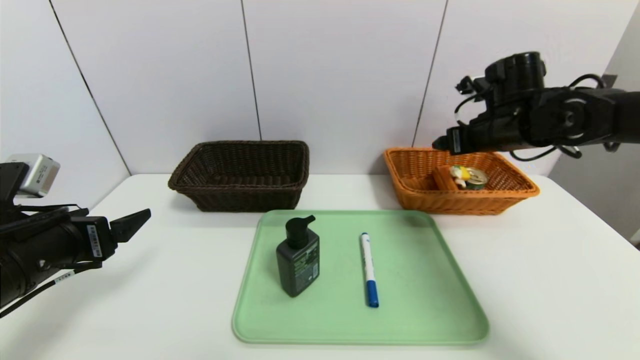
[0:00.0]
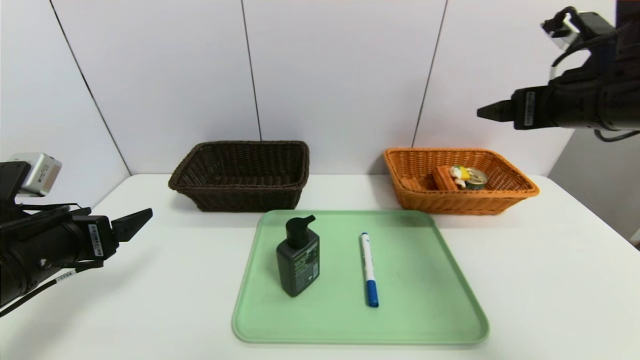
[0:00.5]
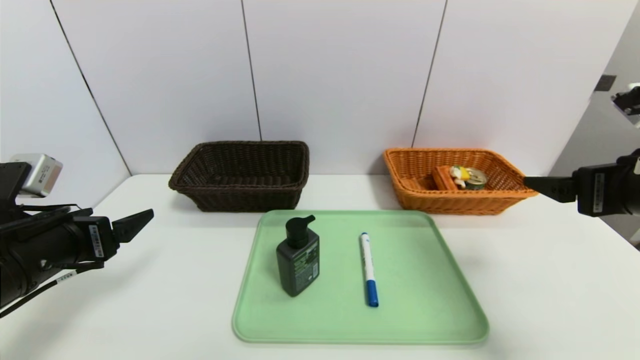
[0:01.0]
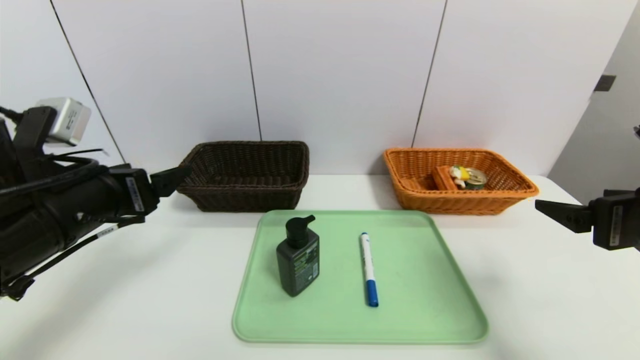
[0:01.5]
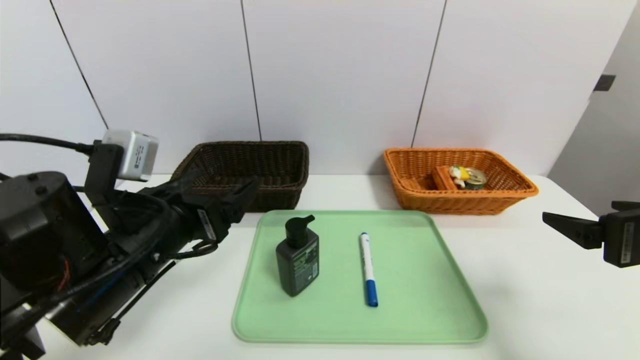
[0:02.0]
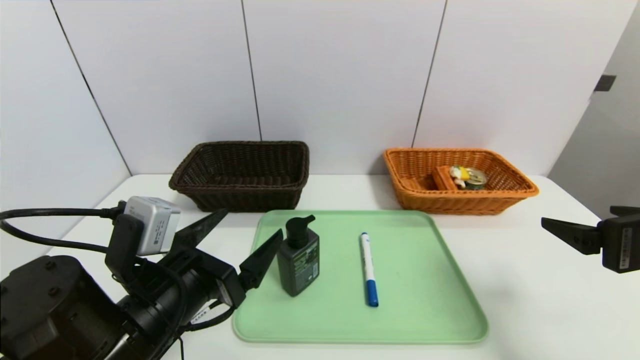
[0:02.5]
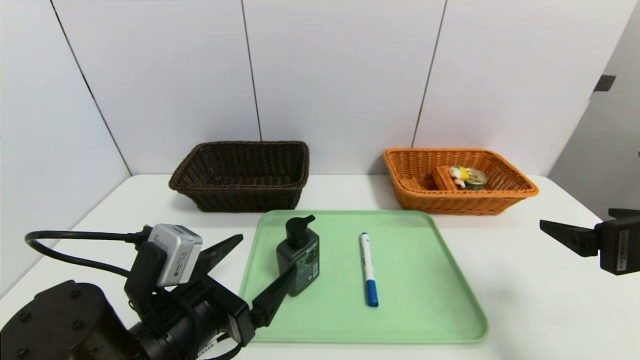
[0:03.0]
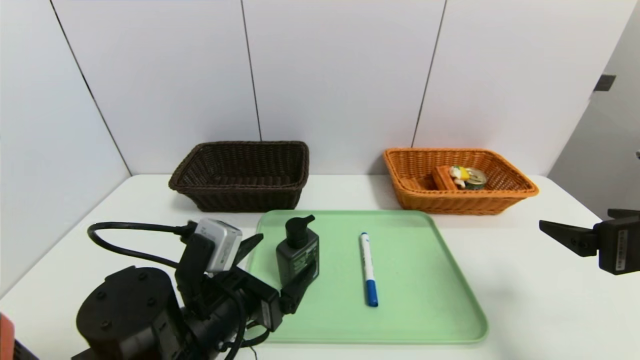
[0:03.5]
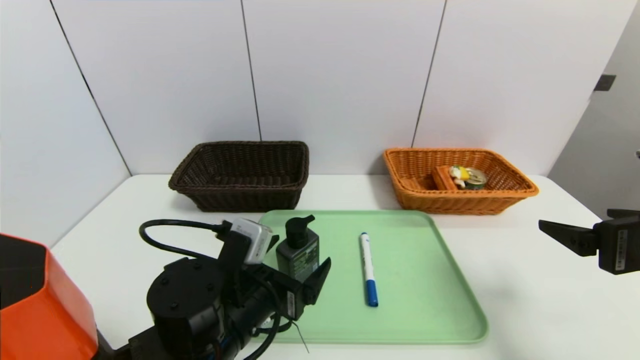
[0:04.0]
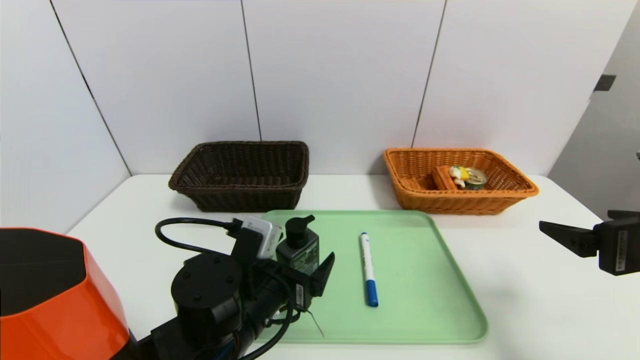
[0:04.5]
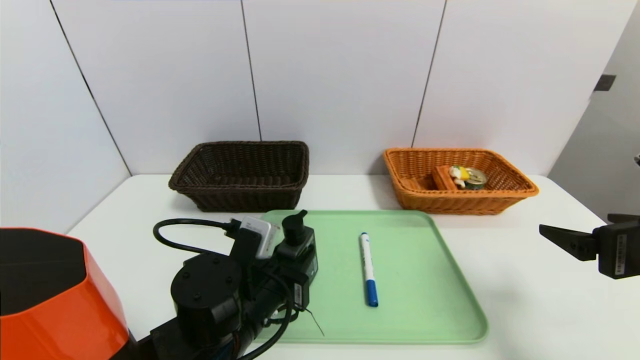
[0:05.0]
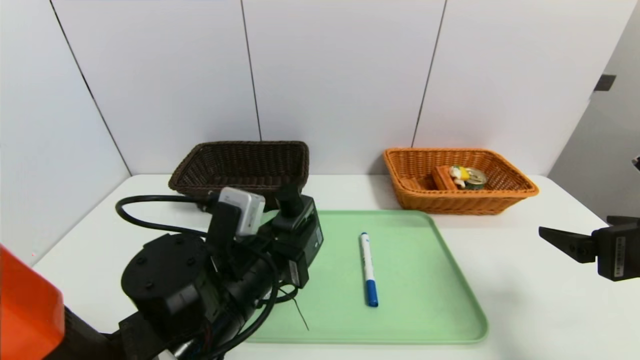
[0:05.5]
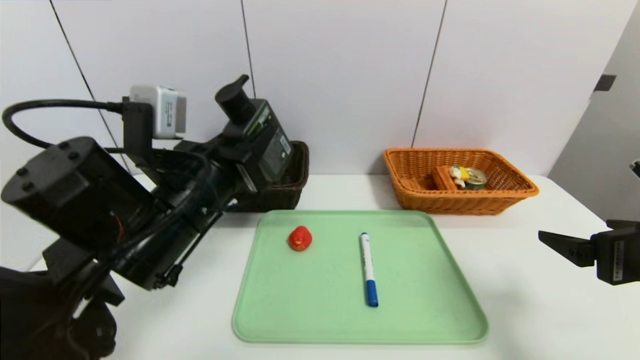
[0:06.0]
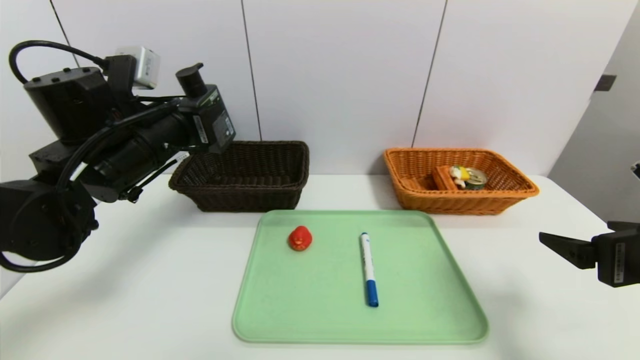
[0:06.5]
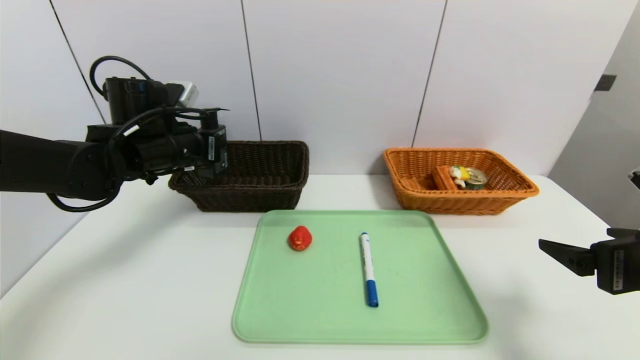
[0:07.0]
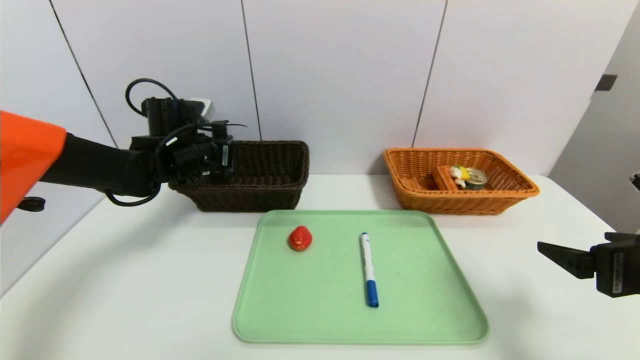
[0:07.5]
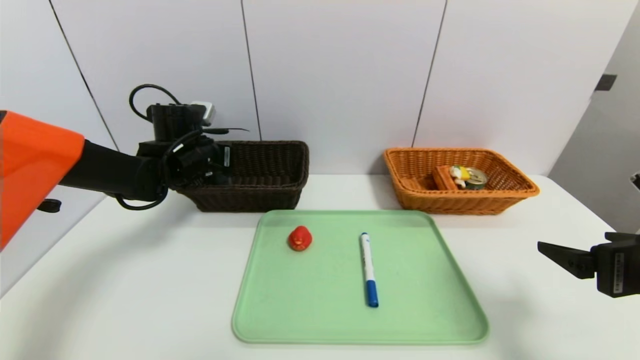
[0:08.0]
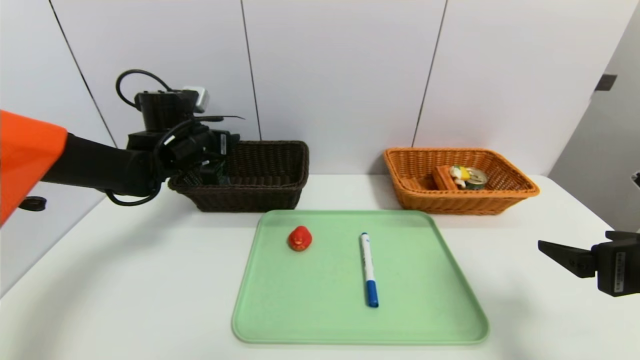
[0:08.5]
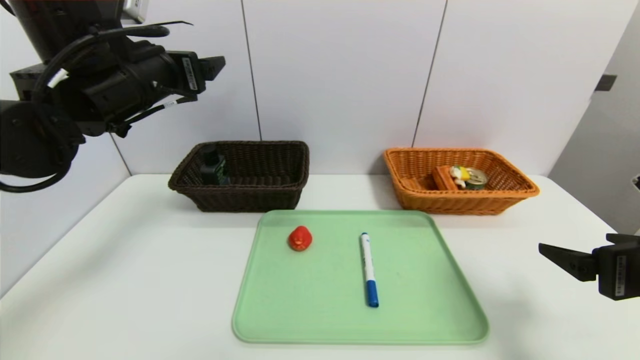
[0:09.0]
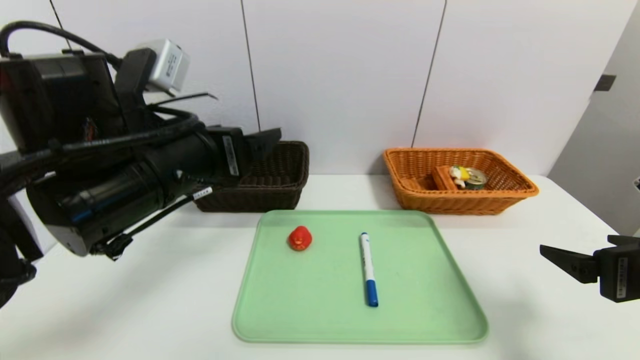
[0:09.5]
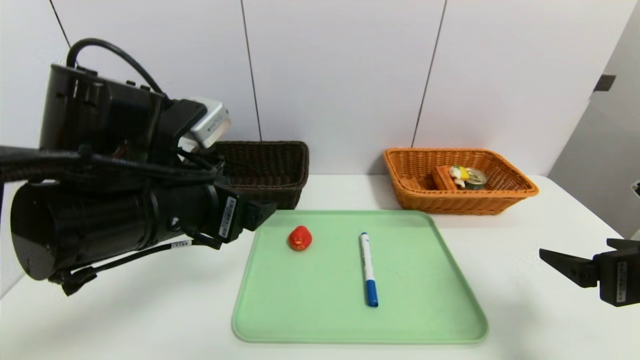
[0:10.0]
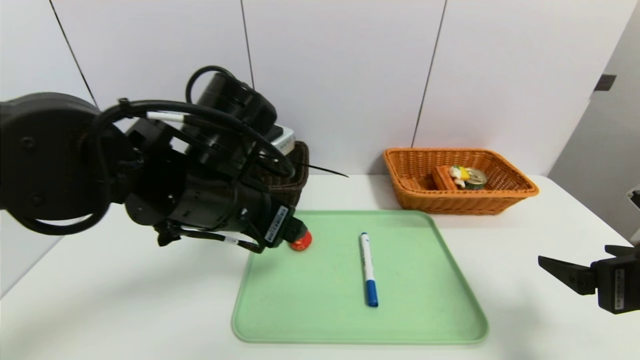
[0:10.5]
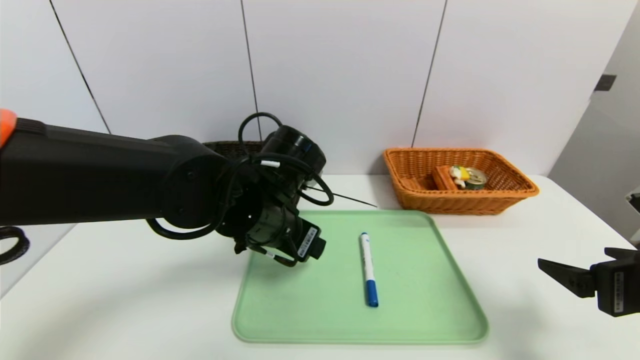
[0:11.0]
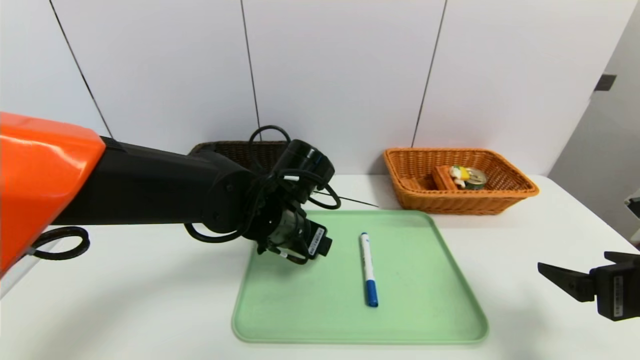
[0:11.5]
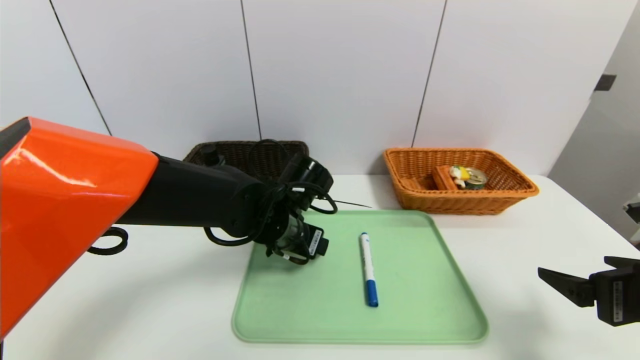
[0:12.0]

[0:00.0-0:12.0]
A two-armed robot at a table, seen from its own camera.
Task of the whole recording: place the food in the right basket with the right gripper, and place the non food items in the left basket with the left gripper.
Step, 0:00.0 to 0:08.5: Grasp the hard cleanser and put it in the left basket.
0:00.0 to 0:02.0: The right gripper travels backward by some 25 cm. The left gripper moves to the right, roughly 10 cm.
0:02.0 to 0:04.0: The left gripper shifts roughly 10 cm downward and to the right.
0:04.0 to 0:06.0: The left gripper is displaced upward by roughly 15 cm, and closes.
0:06.0 to 0:08.0: The left gripper is displaced forward and to the left by roughly 20 cm.
0:08.0 to 0:10.0: The left gripper heads backward, covering some 25 cm, and opens up.
0:10.0 to 0:12.0: The left gripper moves downward, forward and to the right, roughly 20 cm.

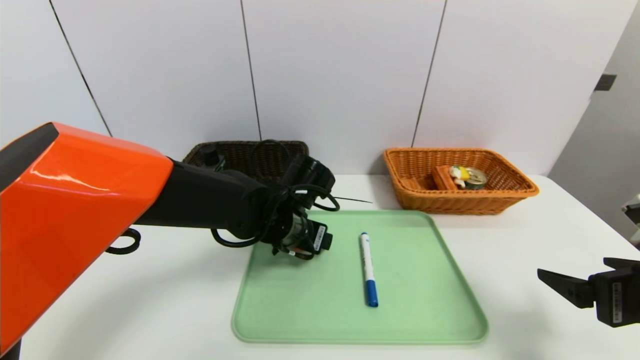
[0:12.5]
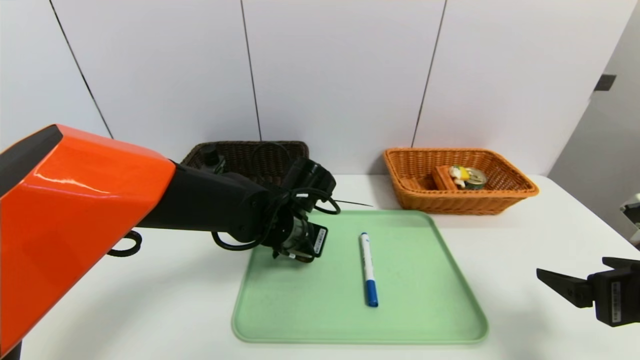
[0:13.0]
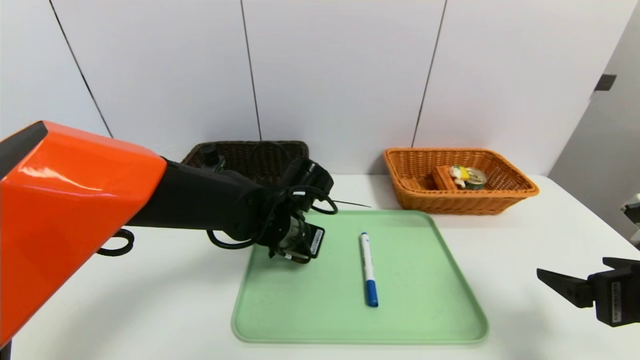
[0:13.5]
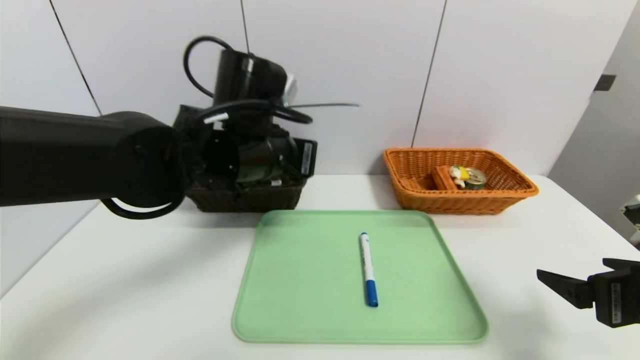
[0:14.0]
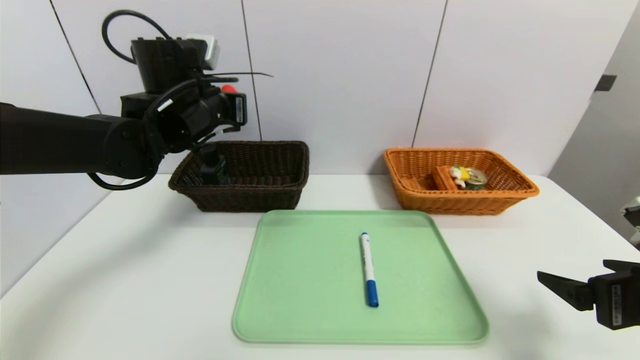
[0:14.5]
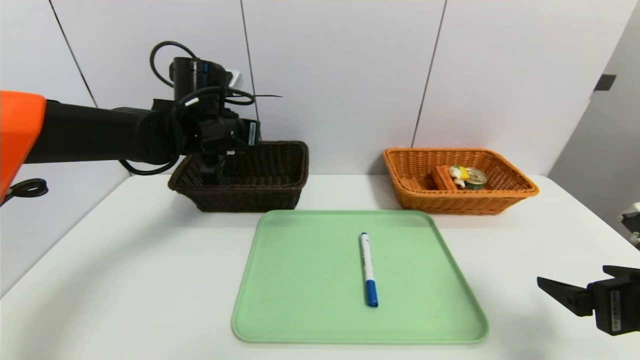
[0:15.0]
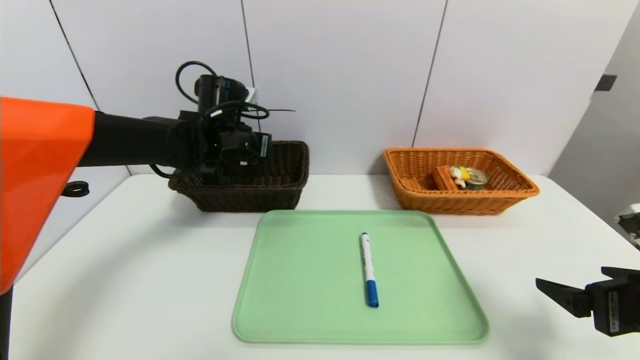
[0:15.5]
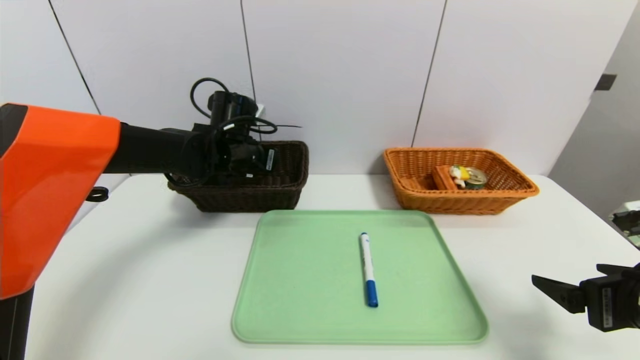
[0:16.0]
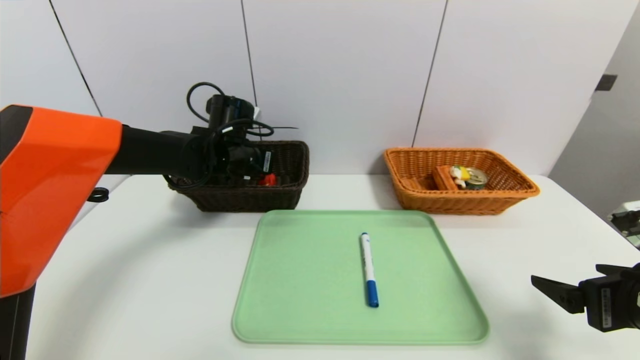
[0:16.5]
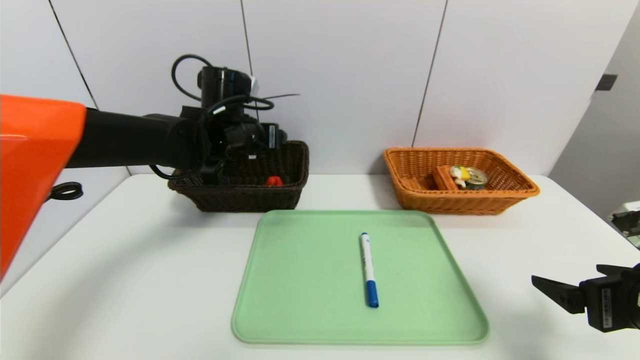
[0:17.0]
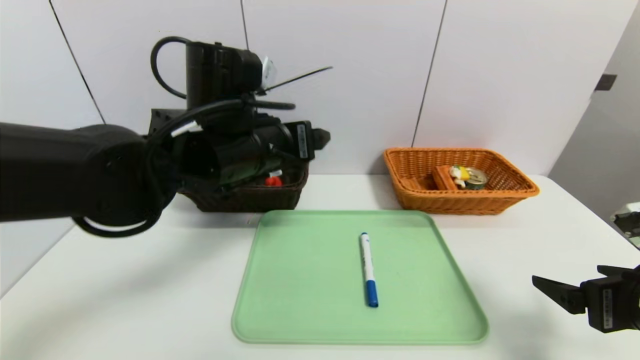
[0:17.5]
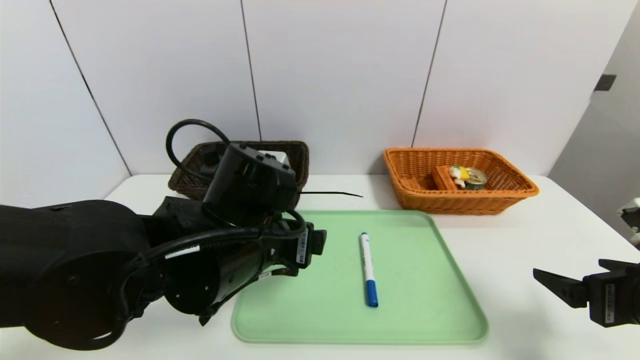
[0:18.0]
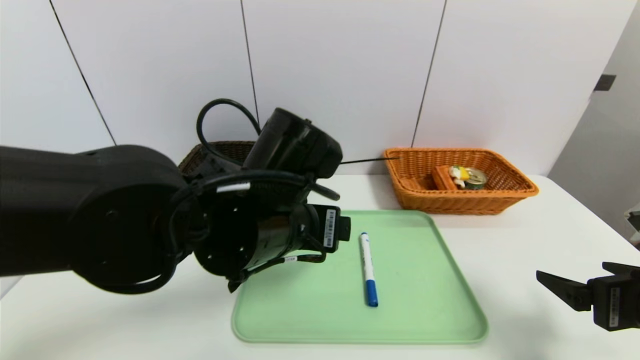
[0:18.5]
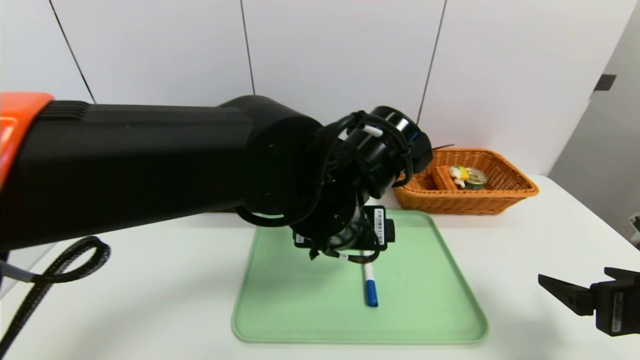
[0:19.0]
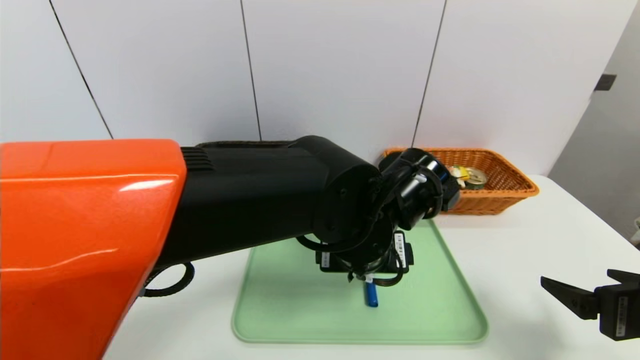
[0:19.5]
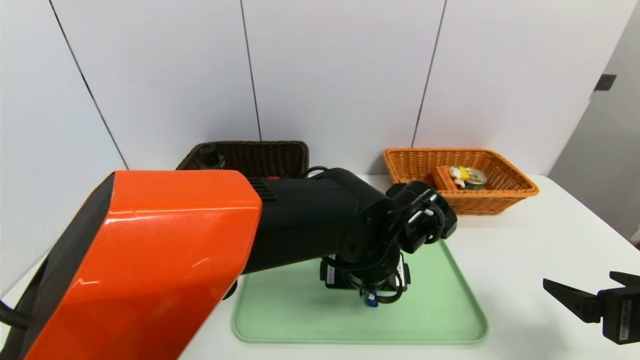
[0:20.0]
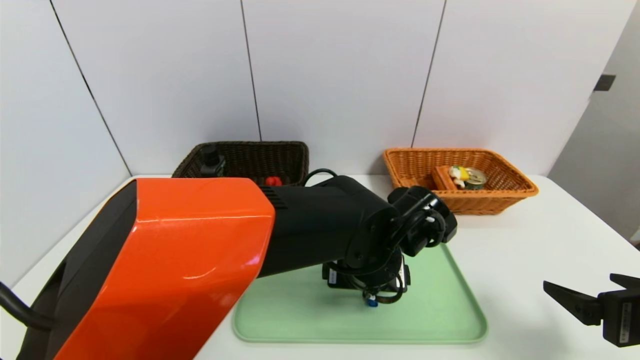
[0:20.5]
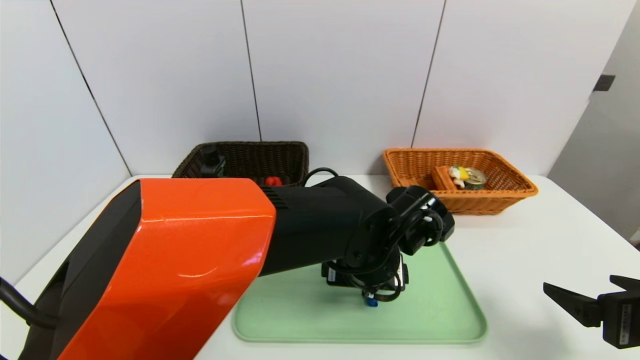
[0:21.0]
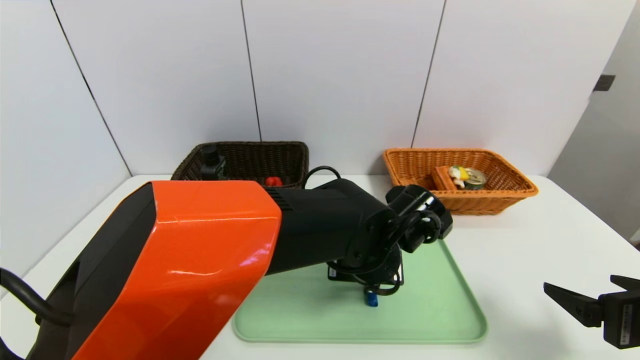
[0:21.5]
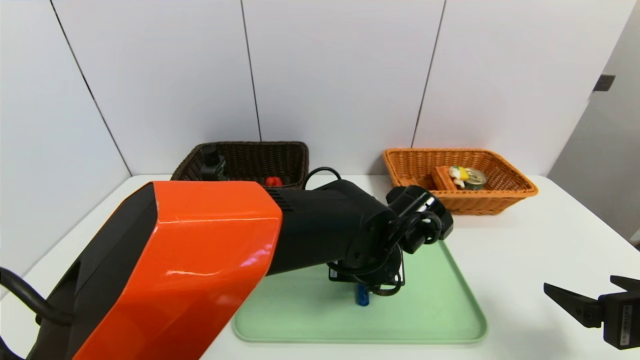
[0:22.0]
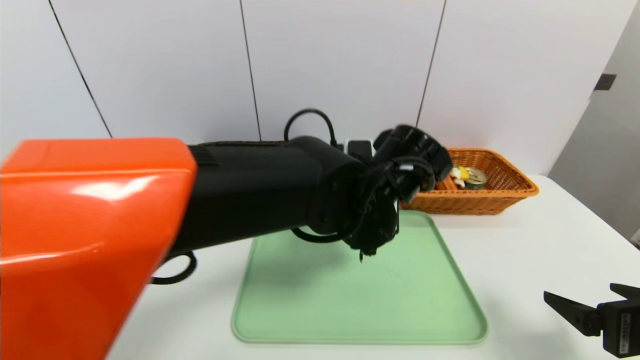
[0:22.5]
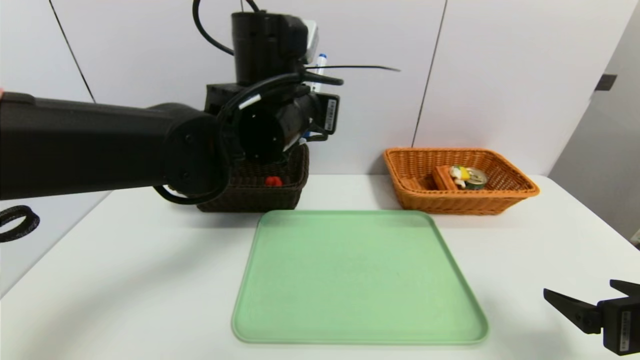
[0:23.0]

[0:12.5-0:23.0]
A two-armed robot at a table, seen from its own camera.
Task of the whole recording: place the food in the right basket with the right gripper, and place the non food items in the left basket with the left gripper.
Step, 0:12.5 to 0:17.0: Grasp the red duck and put it in the left basket.
0:12.5 to 0:14.5: The left gripper is displaced upward and to the left by about 20 cm, and closes.
0:14.5 to 0:16.5: The left gripper goes approximately 10 cm downward and forward.
0:16.5 to 0:19.0: The left gripper travels backward and to the right by approximately 25 cm, and opens its fingers.
0:19.0 to 0:21.0: The left gripper shifts some 10 cm downward.
0:21.0 to 0:23.0: The left gripper moves upward and to the left, some 20 cm, and closes its fingers.
